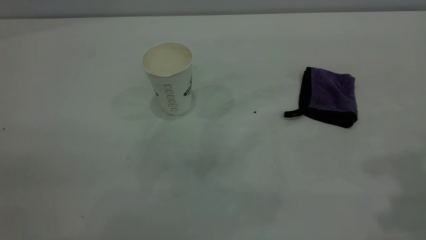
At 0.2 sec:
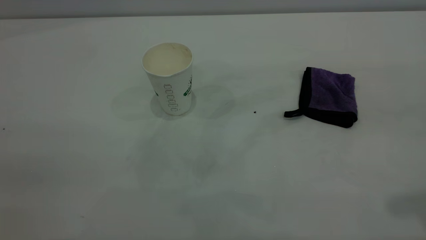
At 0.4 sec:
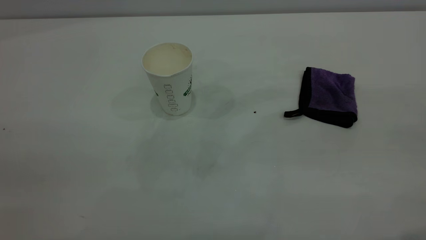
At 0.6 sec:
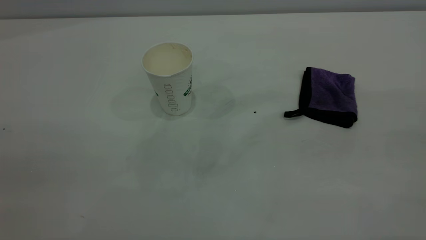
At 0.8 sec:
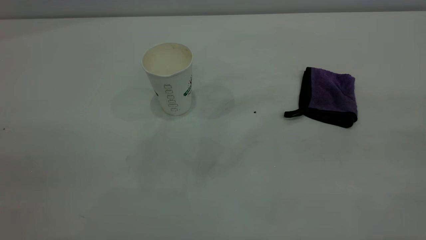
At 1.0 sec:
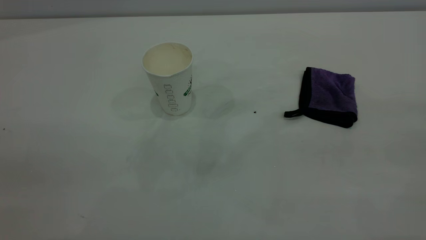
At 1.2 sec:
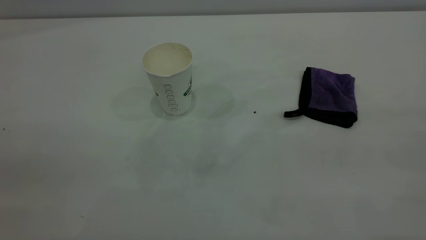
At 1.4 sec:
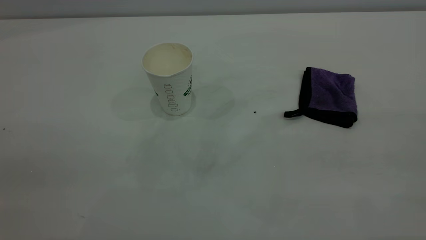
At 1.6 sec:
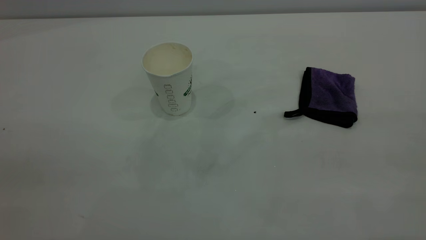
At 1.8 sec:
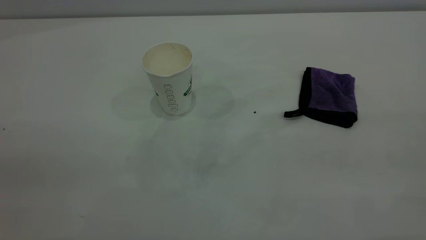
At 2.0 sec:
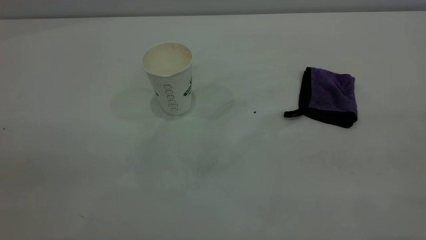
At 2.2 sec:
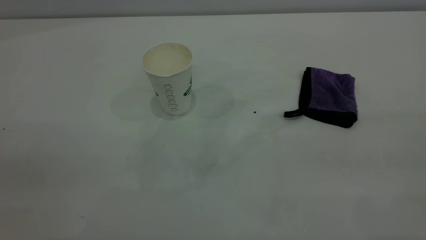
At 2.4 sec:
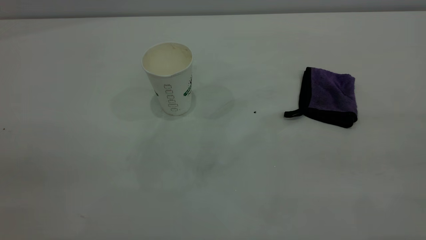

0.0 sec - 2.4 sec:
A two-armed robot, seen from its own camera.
Task of the whole recording: the left gripper pick up the fallen cup and place it upright, the right gripper grasp the purple rag and wipe the coffee stain on the table, the right gripper put the purple rag back in its original position.
1.2 sec - 2.4 sec: Neither gripper changes place.
